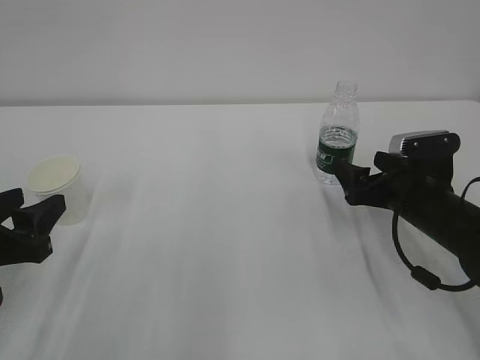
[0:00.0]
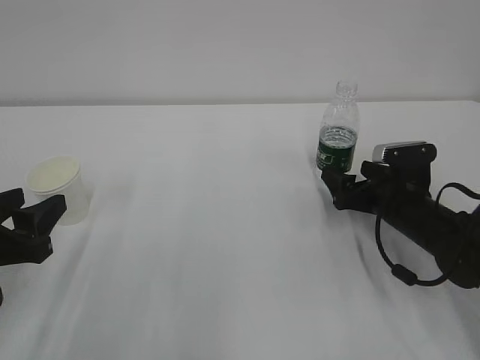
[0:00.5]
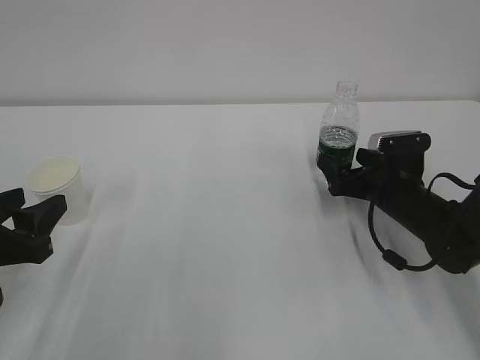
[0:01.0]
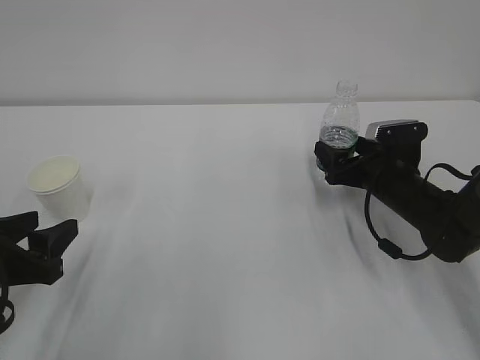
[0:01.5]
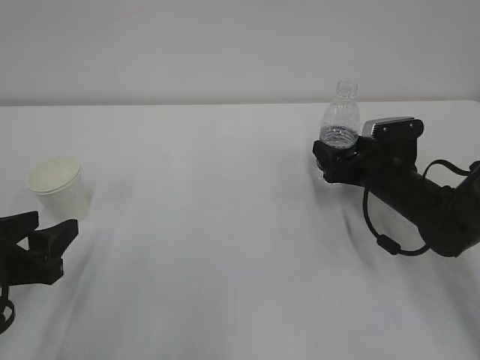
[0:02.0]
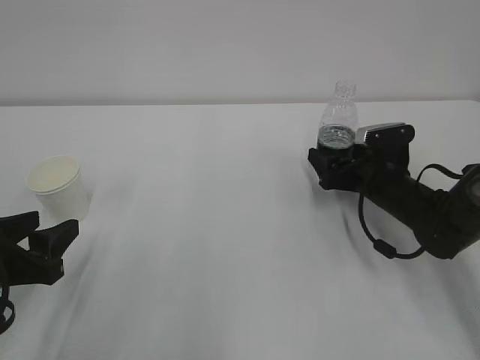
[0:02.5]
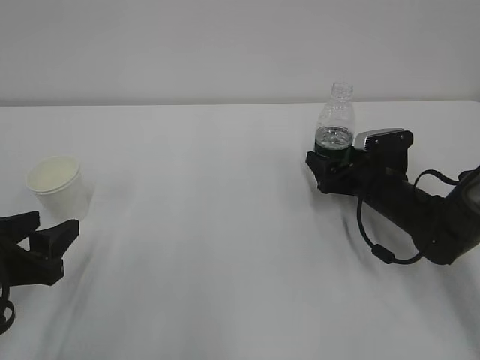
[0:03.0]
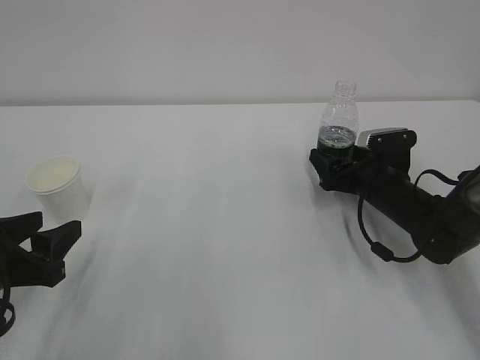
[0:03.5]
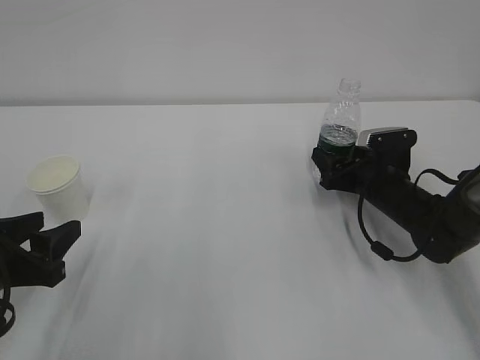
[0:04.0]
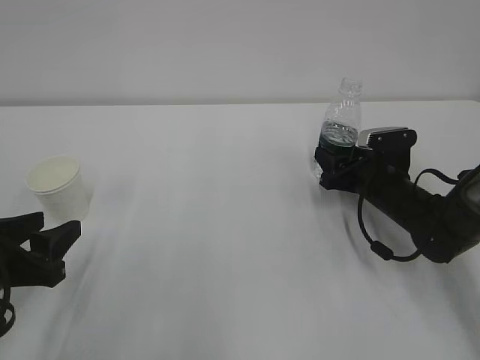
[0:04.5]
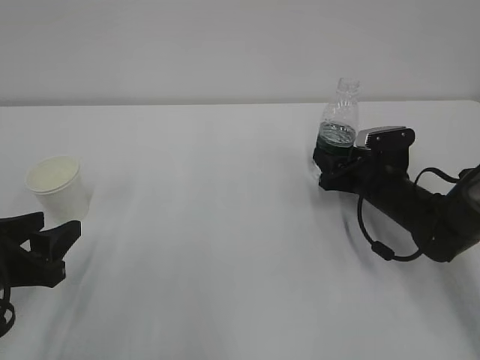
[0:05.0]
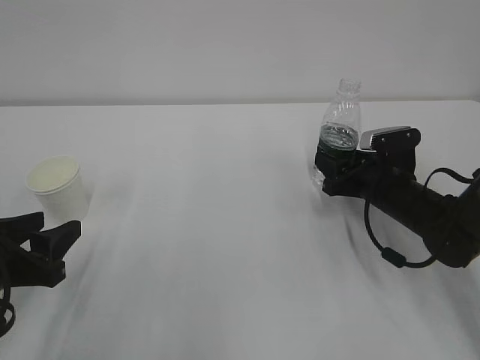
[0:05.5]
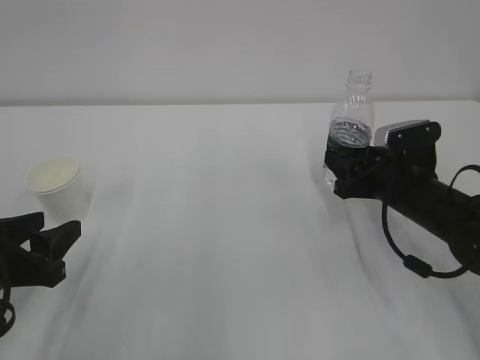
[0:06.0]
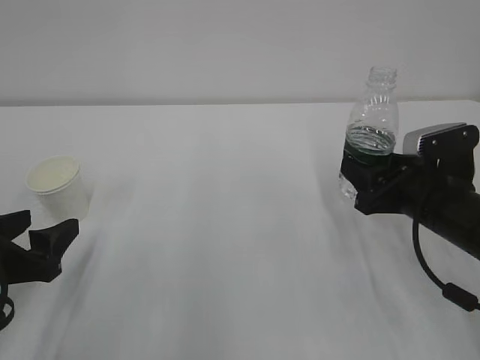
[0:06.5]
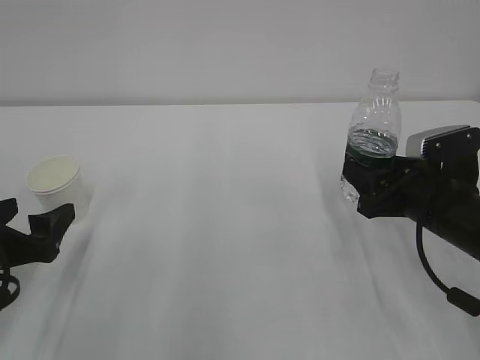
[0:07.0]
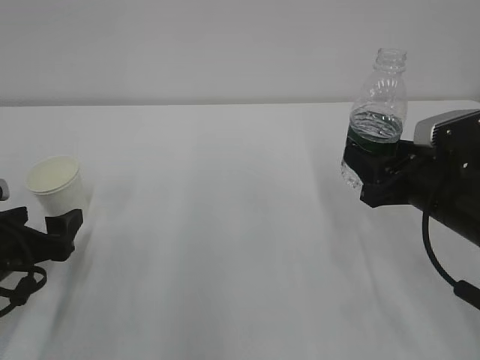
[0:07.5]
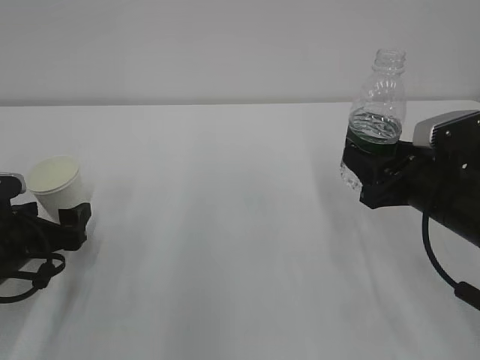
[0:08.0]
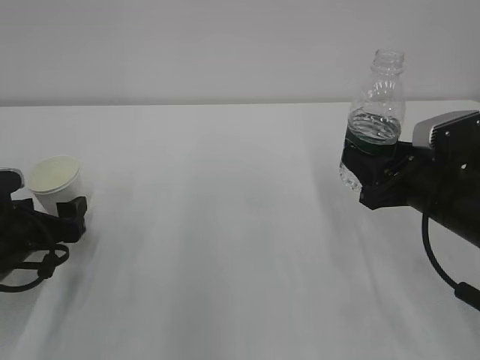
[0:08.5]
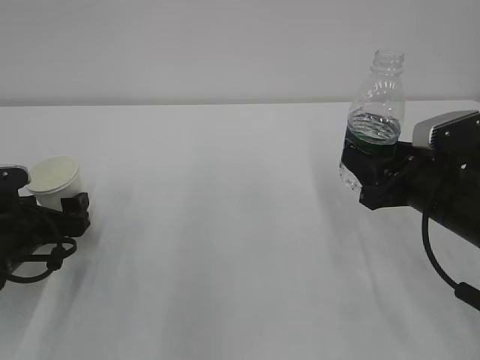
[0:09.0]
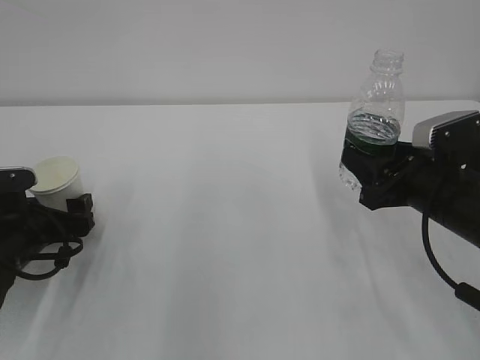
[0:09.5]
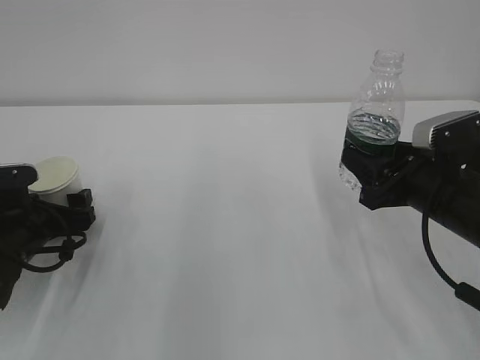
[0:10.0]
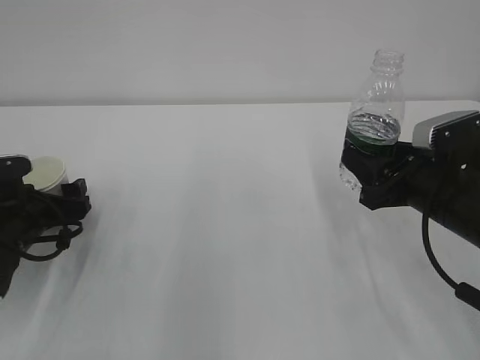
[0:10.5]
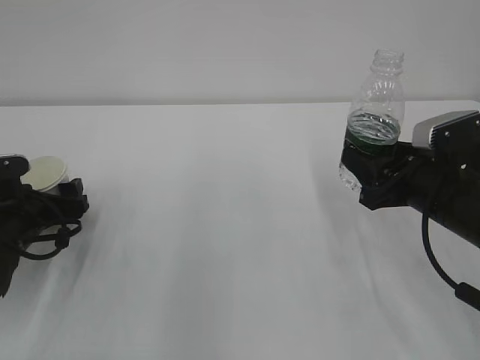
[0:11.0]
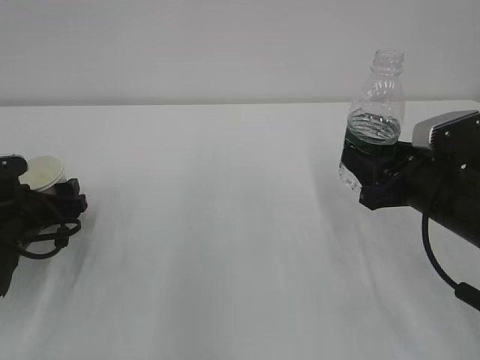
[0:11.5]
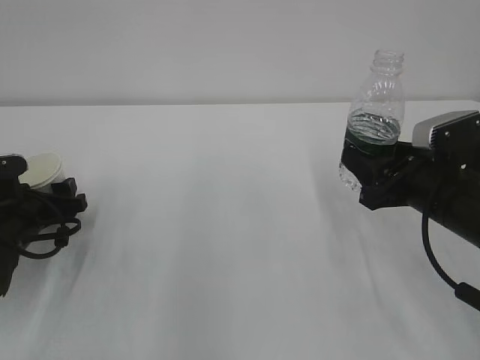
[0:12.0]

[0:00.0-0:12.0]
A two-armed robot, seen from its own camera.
0:00.0 to 0:02.0: The right gripper goes some 5 cm forward.
0:02.0 to 0:04.0: The right gripper closes its fingers.
0:04.0 to 0:06.0: The right gripper goes roughly 5 cm backward, and closes.
0:06.0 to 0:08.0: The right gripper moves backward, approximately 5 cm. Meanwhile the left gripper is displaced forward by approximately 5 cm, and opens.
0:08.0 to 0:10.0: The grippers make only small movements.
0:10.0 to 0:12.0: The left gripper closes up.

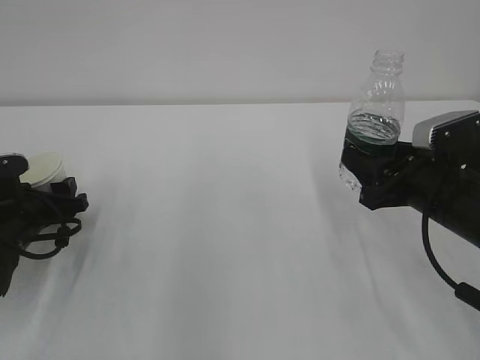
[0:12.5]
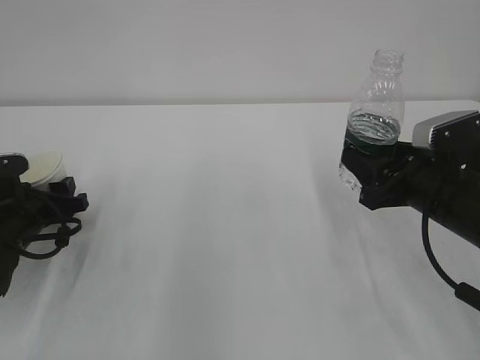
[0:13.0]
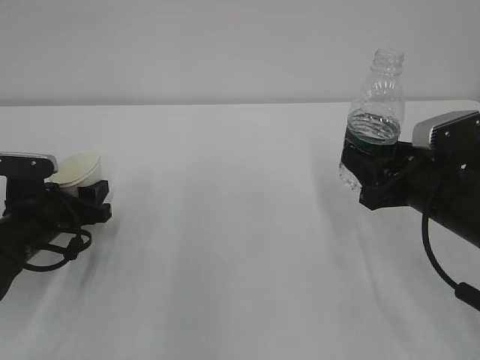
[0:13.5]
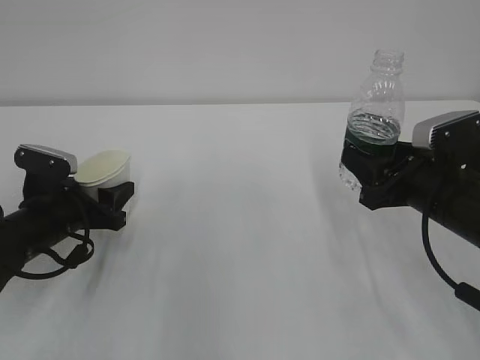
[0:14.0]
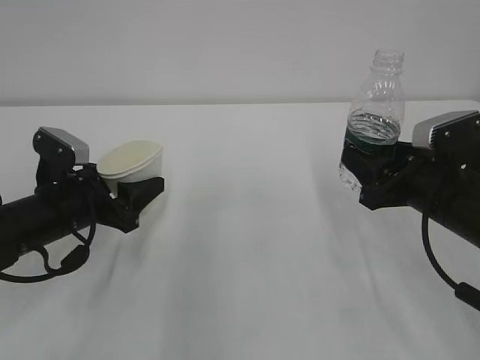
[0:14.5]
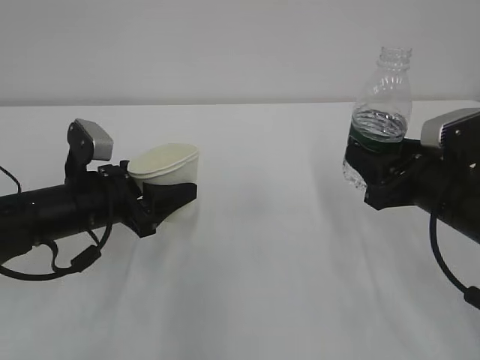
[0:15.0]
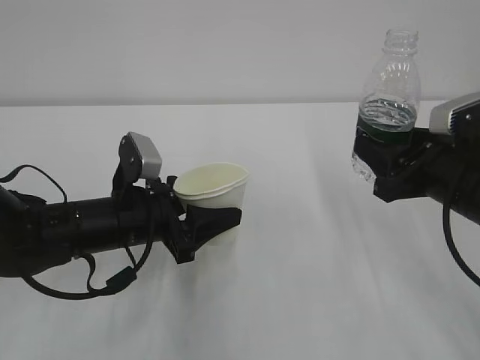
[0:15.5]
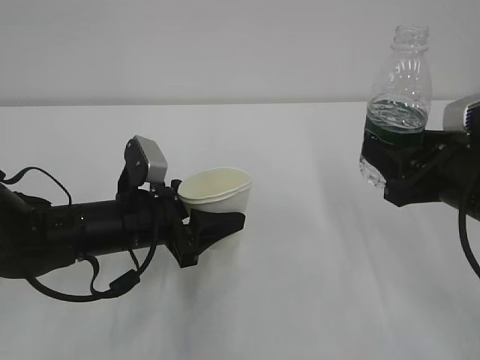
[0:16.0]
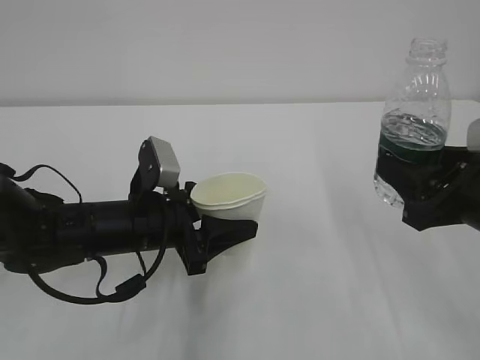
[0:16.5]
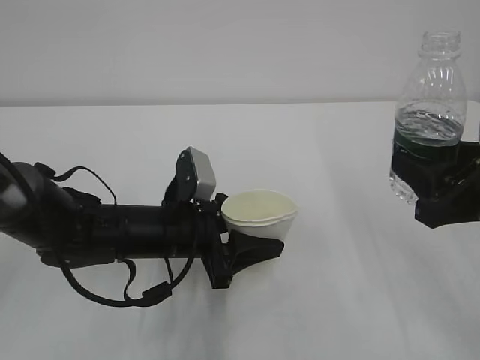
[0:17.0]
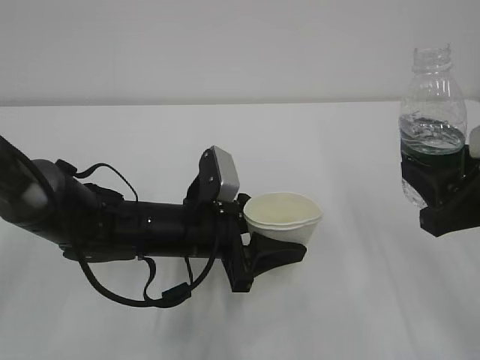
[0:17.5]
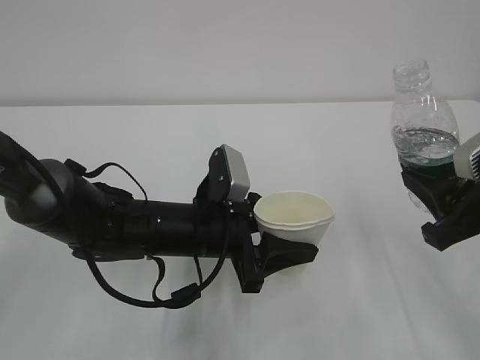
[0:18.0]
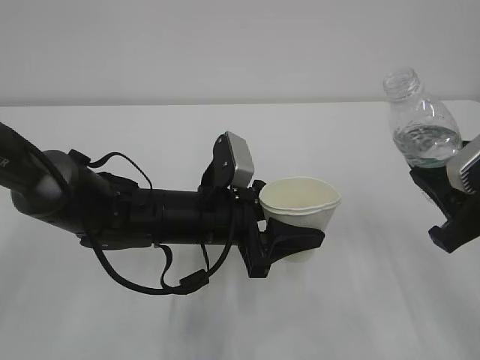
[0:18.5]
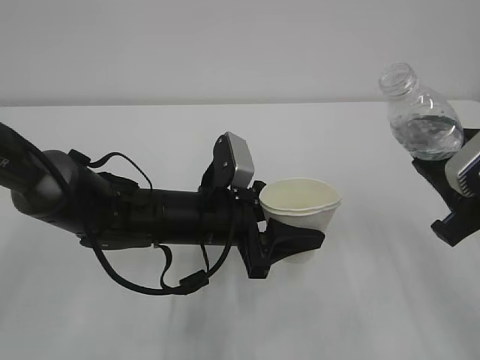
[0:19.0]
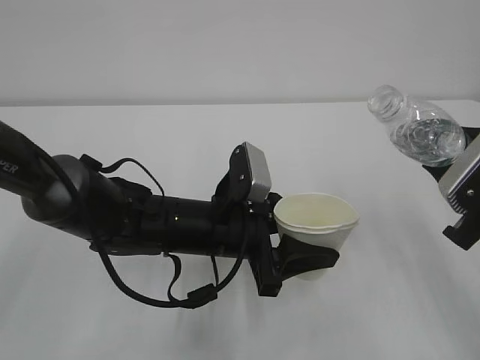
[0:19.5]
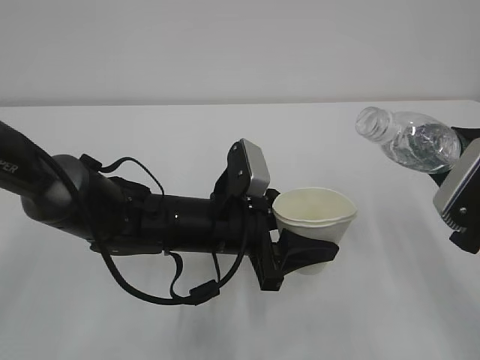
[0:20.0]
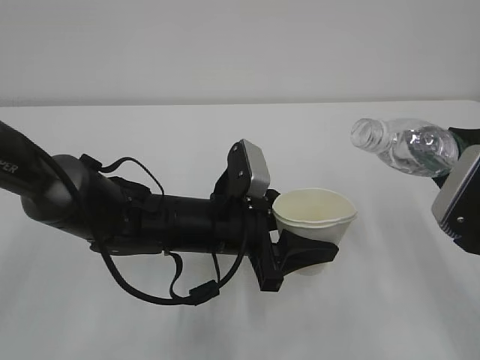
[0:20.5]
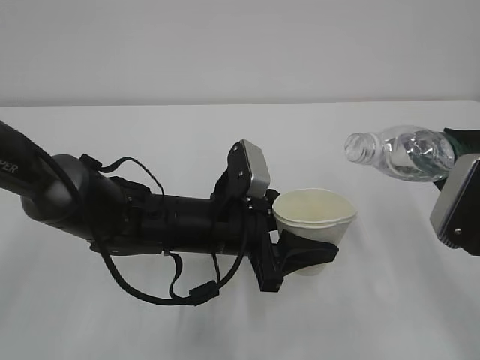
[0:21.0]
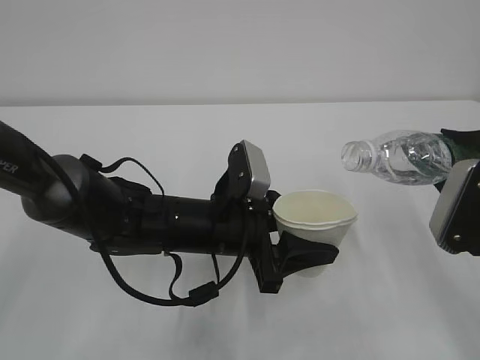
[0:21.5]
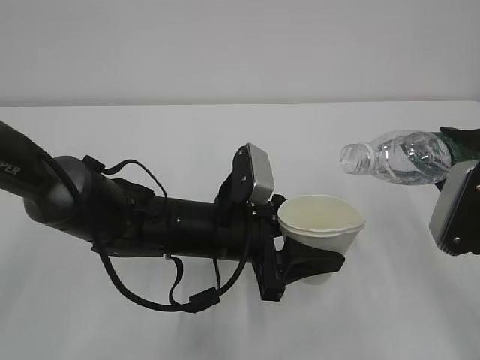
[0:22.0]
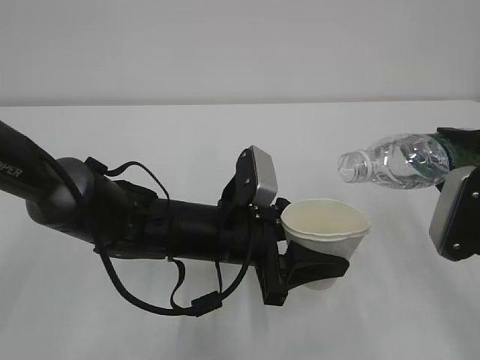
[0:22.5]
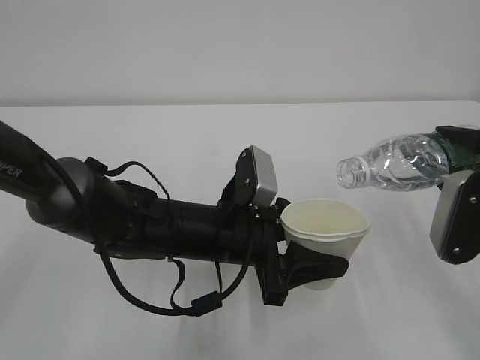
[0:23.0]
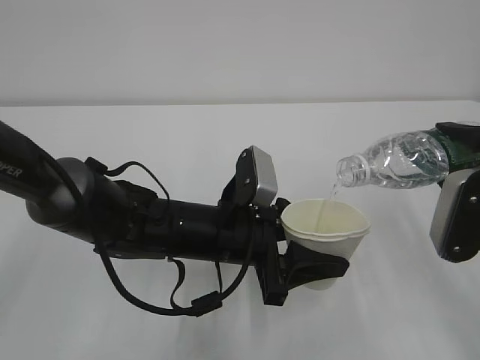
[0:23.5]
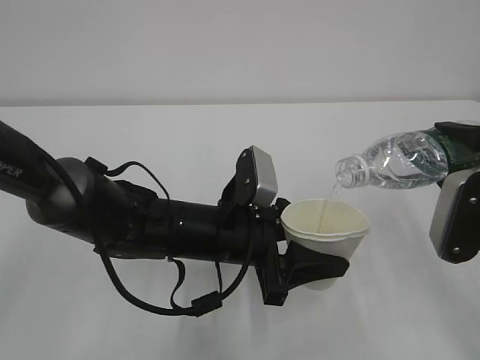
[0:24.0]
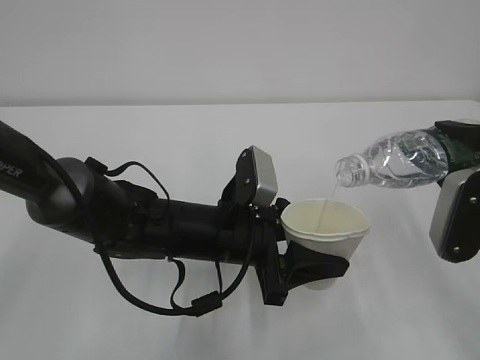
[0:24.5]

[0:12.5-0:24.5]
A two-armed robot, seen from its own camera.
0:12.5 to 0:14.5: The left gripper goes approximately 5 cm to the right.
0:14.5 to 0:16.5: The left gripper shifts approximately 10 cm to the right. The right gripper heads backward, covering approximately 5 cm.
0:16.5 to 0:18.5: The left gripper heads to the right, covering roughly 5 cm.
0:20.5 to 0:22.5: The grippers stay close to where they were, moving slightly.
0:22.5 to 0:24.5: There are only small adjustments of the grippers.

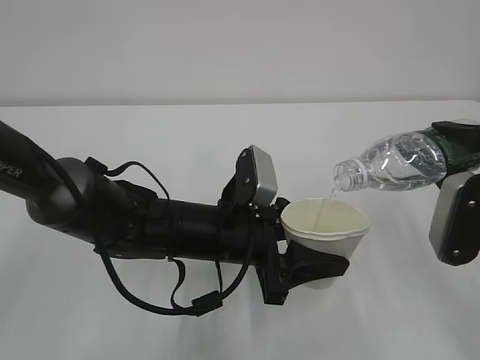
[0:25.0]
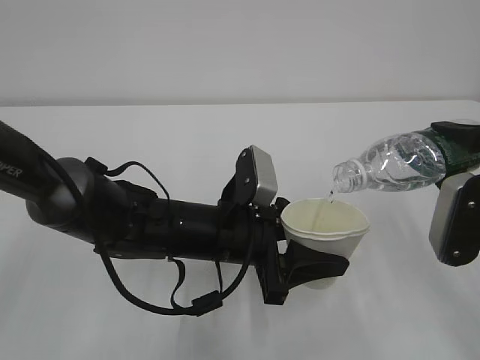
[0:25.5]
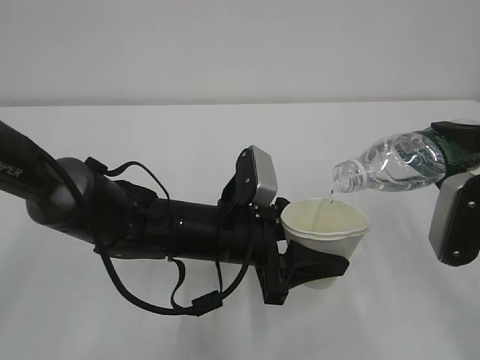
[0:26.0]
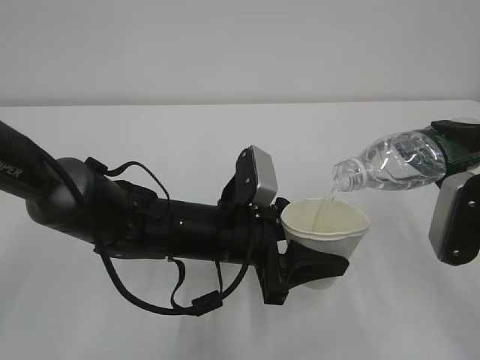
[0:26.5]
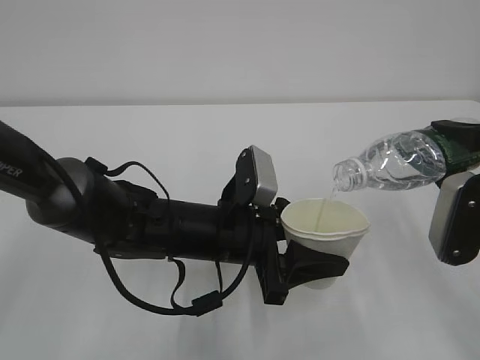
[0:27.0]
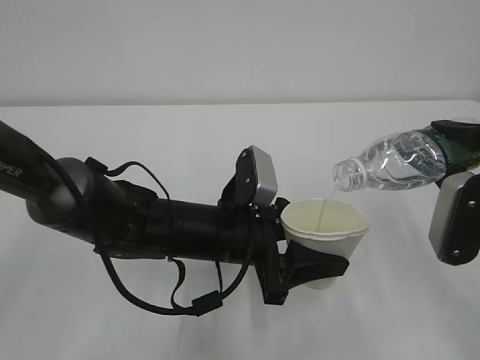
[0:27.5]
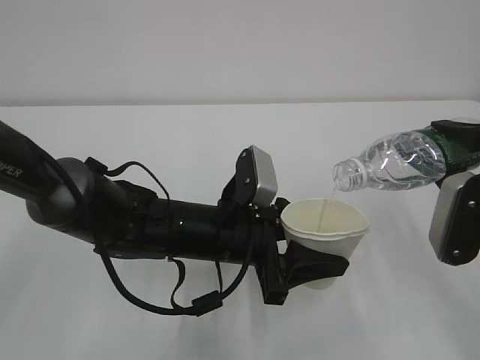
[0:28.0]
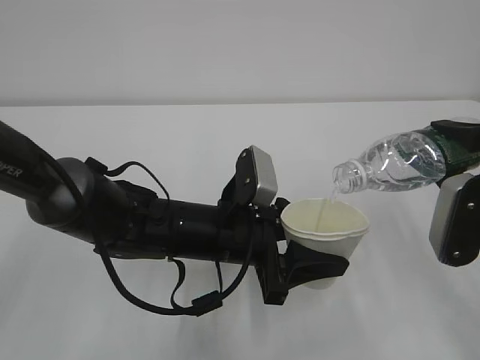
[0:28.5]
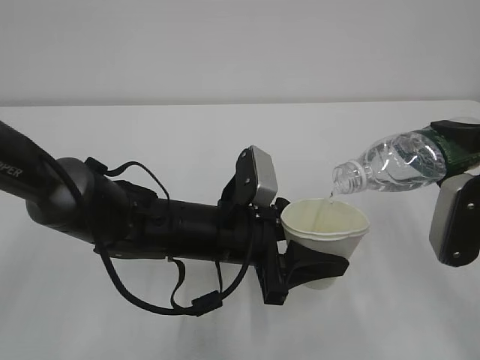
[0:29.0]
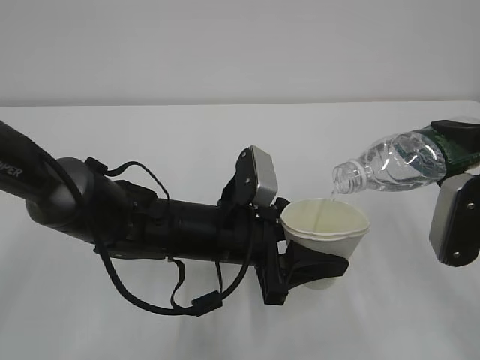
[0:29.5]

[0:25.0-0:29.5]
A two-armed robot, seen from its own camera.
0:25.0 to 0:29.5: Both grippers stay about where they are.
